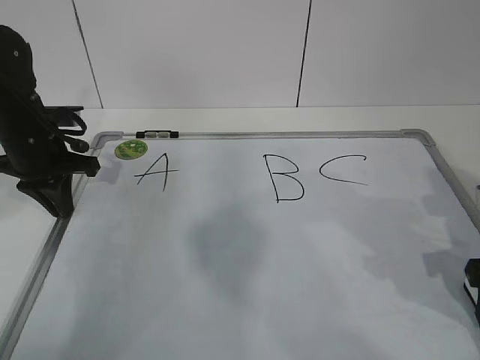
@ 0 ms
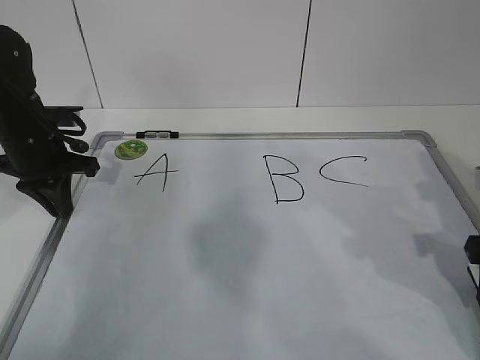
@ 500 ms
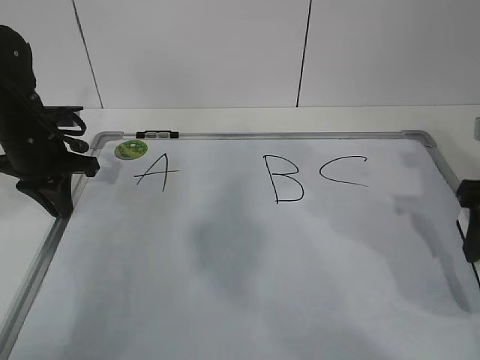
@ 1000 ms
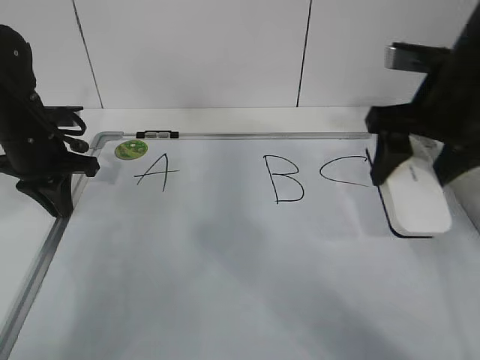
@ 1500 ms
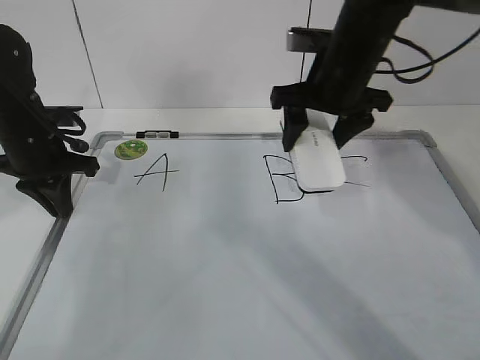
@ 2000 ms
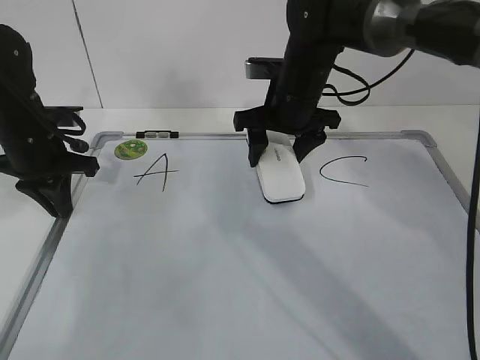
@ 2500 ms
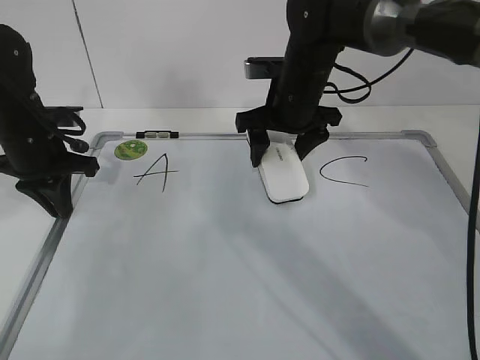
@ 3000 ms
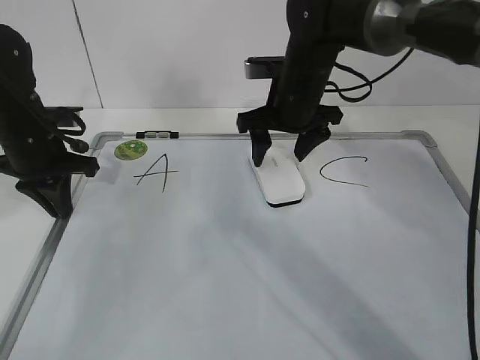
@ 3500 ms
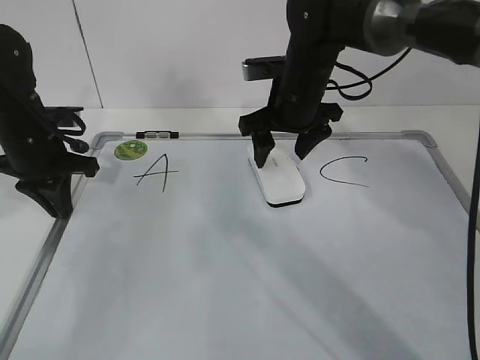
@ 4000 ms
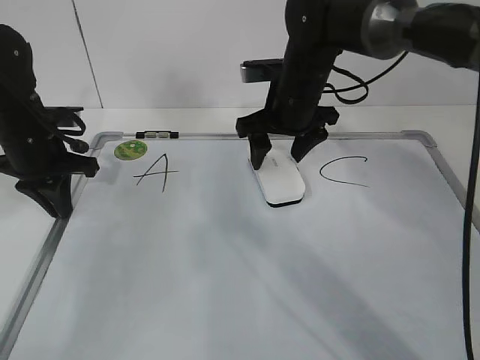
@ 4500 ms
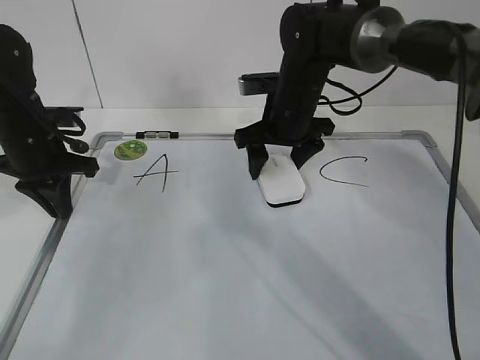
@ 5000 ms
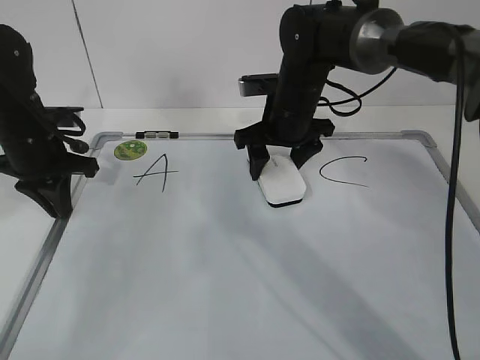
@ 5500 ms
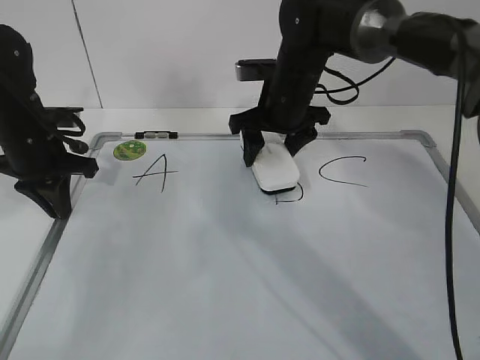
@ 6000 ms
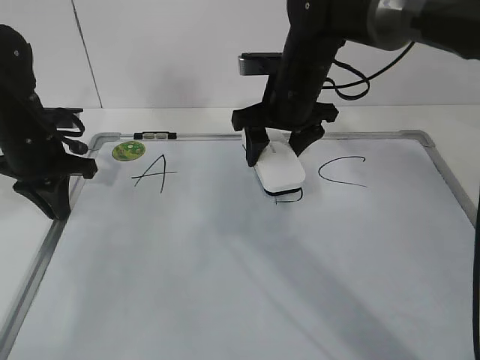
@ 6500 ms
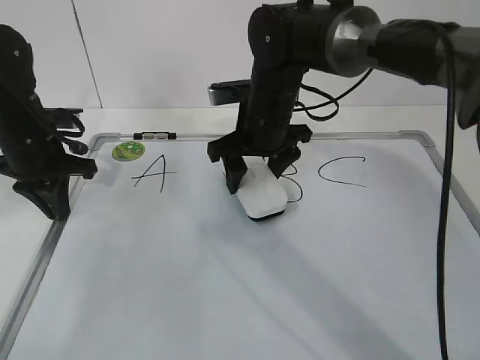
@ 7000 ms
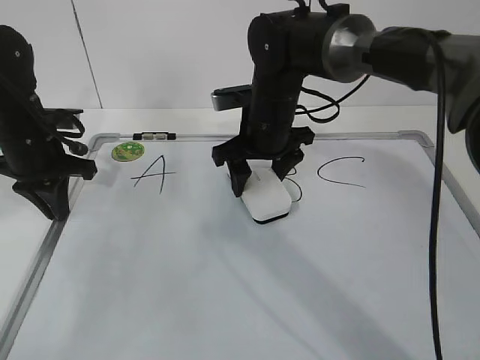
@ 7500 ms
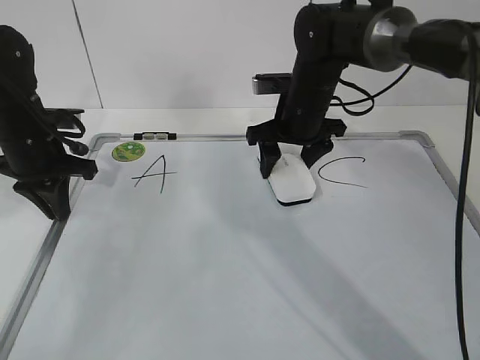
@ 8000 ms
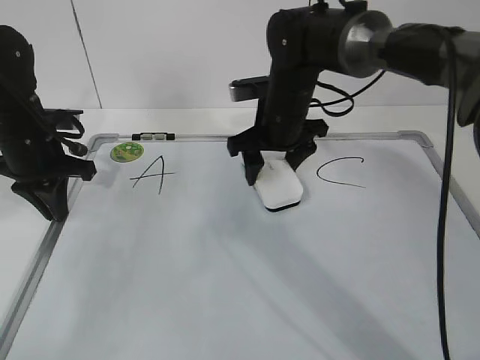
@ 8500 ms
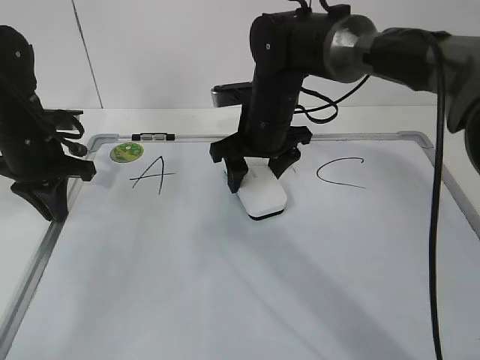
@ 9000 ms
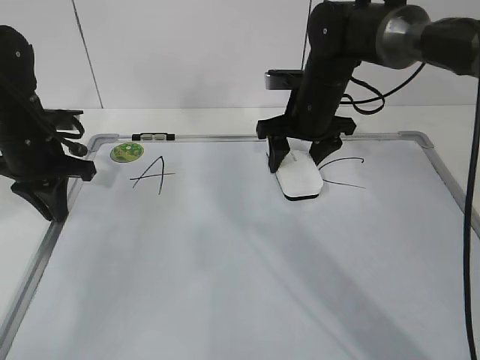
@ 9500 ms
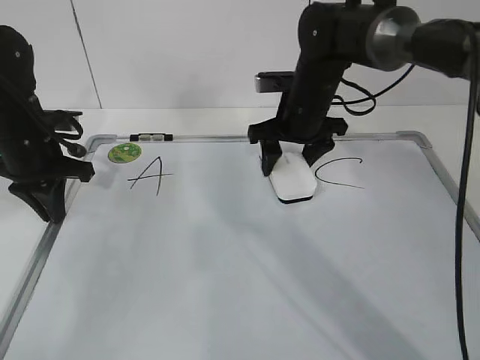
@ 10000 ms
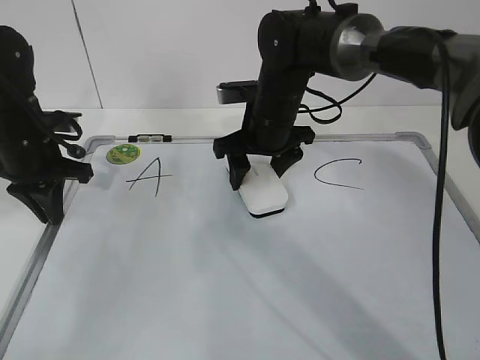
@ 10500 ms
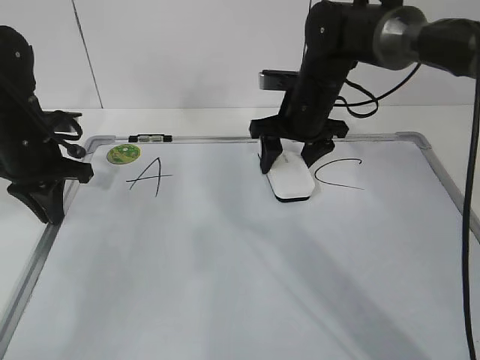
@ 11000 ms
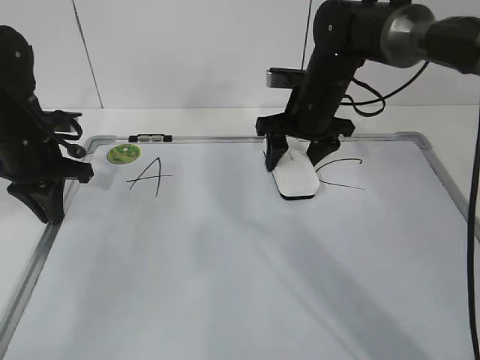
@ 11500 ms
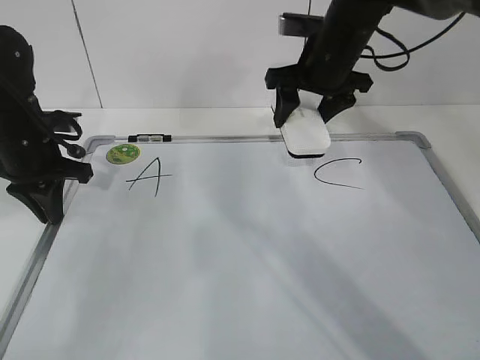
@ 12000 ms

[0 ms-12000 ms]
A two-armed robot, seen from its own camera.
Task of the whole recording: pick up the eraser on the blackboard and erase the letter "B".
Step, 0 ms to 7500 ms: Erase the letter B with your right hand.
0 ms to 2000 ms: The right gripper is displaced forward, to the left and upward by approximately 25 cm, and closes.
2000 ms to 4000 ms: The right gripper ends up approximately 5 cm from where it was, and opens.
4000 ms to 6000 ms: The right gripper closes.
6000 ms to 8000 ms: The grippers make only small movements.
10000 ms to 12000 ms: The right gripper goes approximately 5 cm upward.

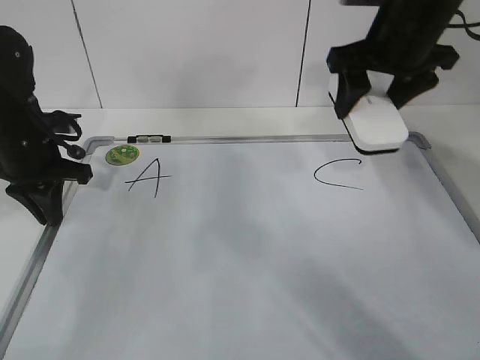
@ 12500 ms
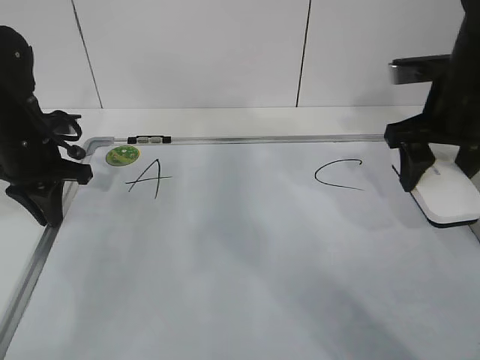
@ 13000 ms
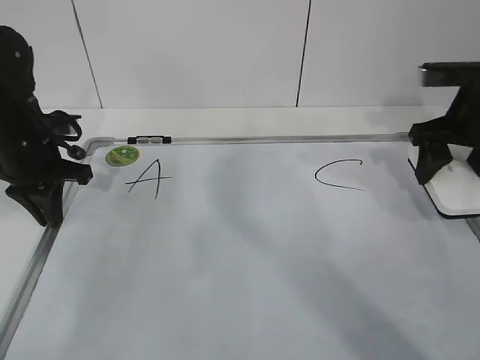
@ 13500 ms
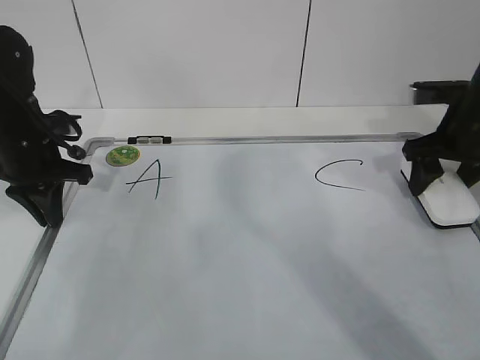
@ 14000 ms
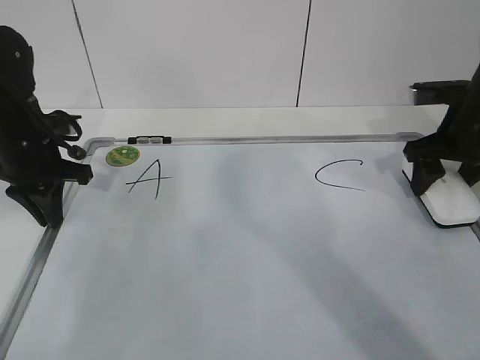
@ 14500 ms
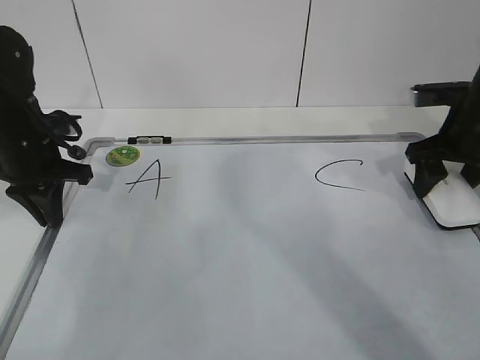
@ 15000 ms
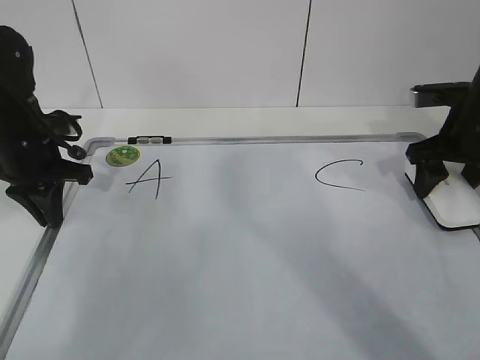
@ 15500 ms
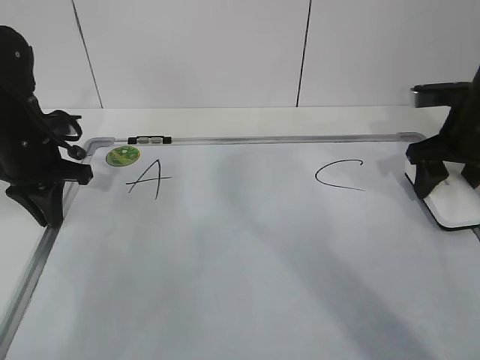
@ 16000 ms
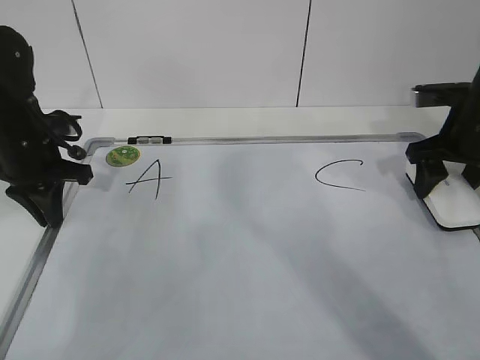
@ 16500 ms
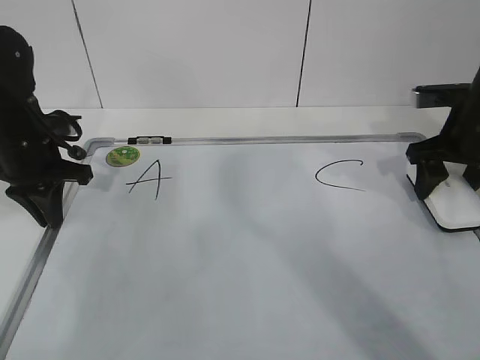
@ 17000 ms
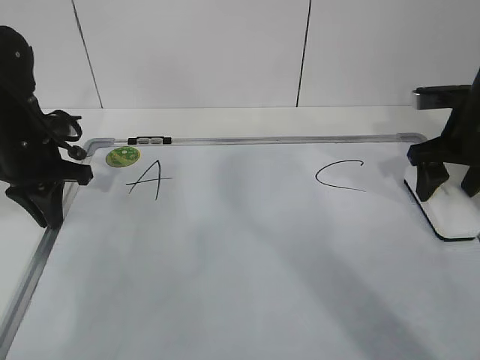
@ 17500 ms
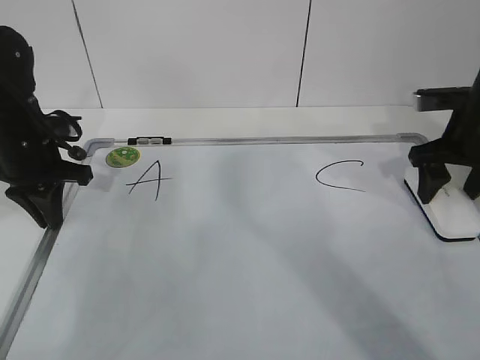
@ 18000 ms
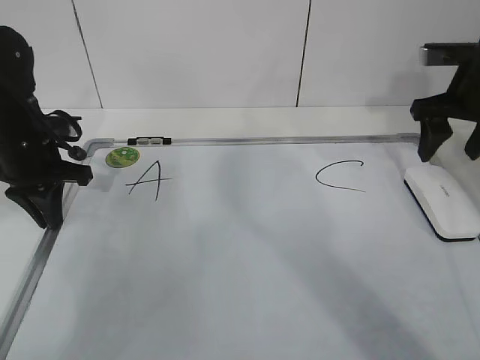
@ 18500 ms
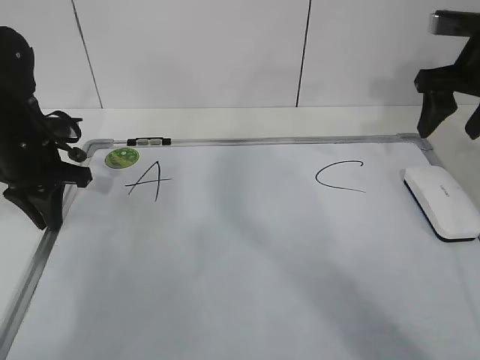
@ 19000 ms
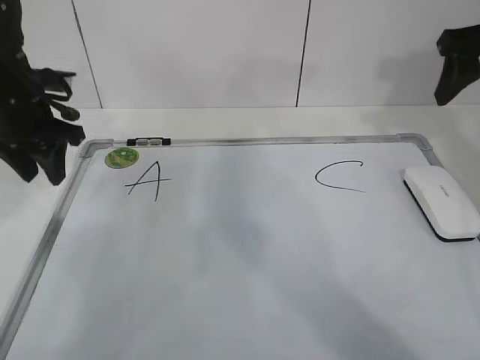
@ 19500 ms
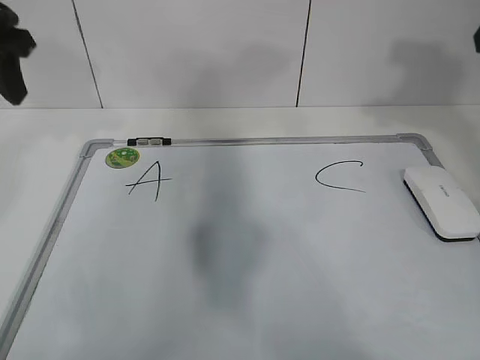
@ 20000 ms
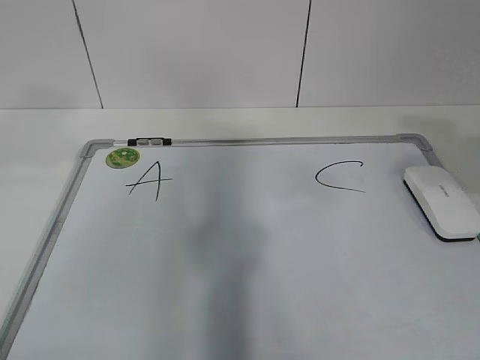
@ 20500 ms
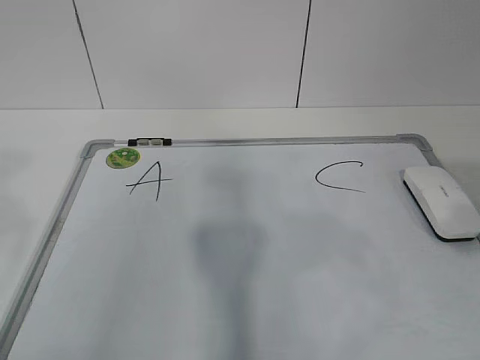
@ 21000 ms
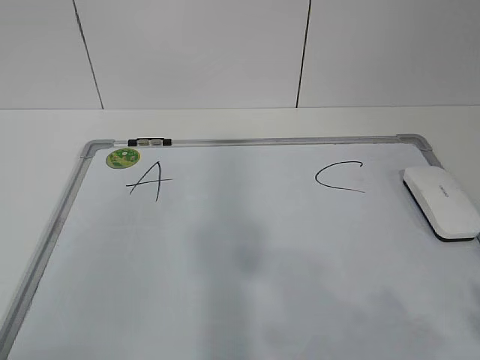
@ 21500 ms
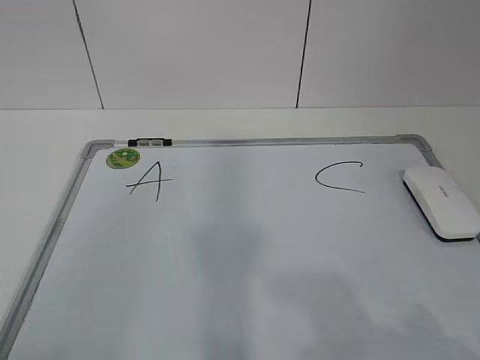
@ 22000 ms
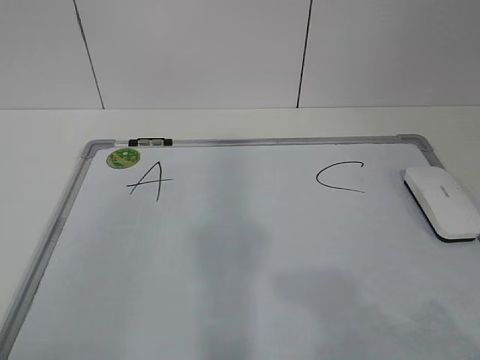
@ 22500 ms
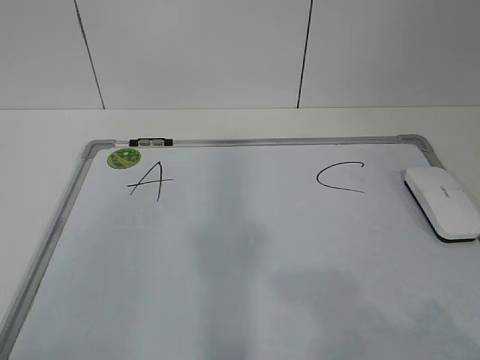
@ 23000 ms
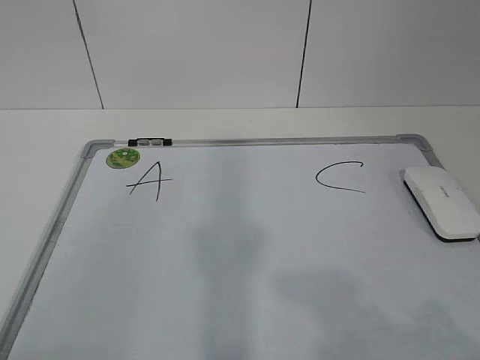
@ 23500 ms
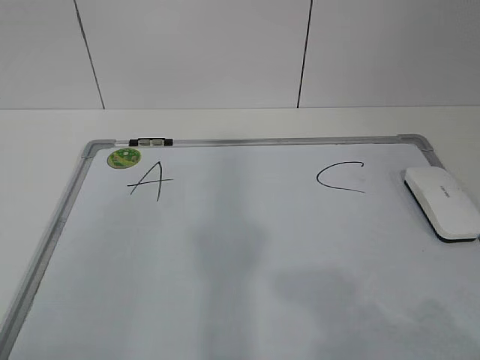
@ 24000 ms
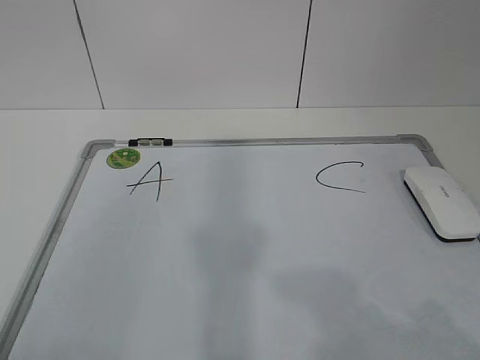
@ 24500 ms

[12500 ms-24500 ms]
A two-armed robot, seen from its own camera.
Task of the whole recording: pick up the eraser on the blackboard and erase the letter "B".
12500 ms to 14500 ms: The right gripper goes approximately 15 cm to the right and downward.
14500 ms to 16500 ms: Neither gripper changes place.
16500 ms to 18500 ms: The grippers stay close to where they were, moving slightly.
18500 ms to 20500 ms: The right gripper moves backward and upward, approximately 25 cm. The left gripper heads upward and backward, covering approximately 30 cm, and opens up.
20500 ms to 22500 ms: Both grippers move backward and downward, some 25 cm.
22500 ms to 24500 ms: The two grippers keep their place.
